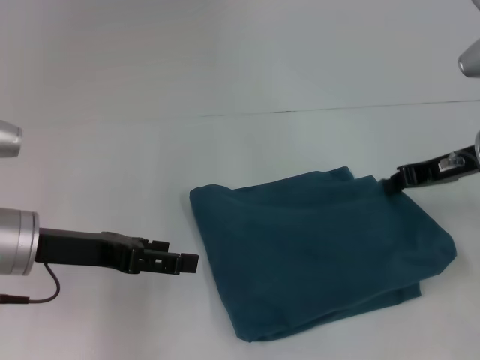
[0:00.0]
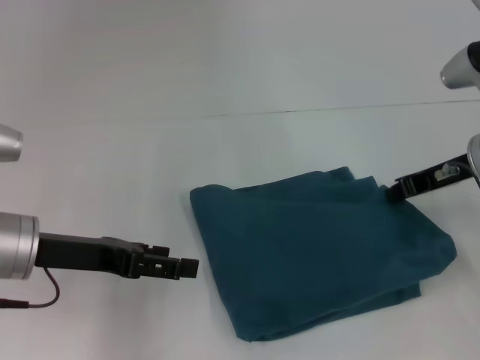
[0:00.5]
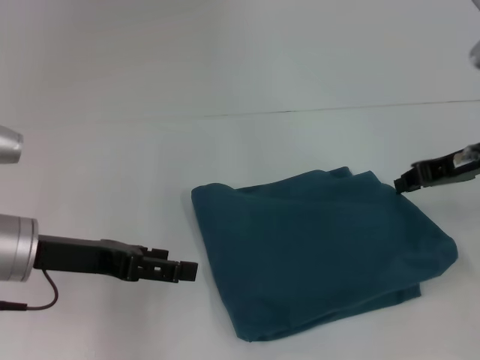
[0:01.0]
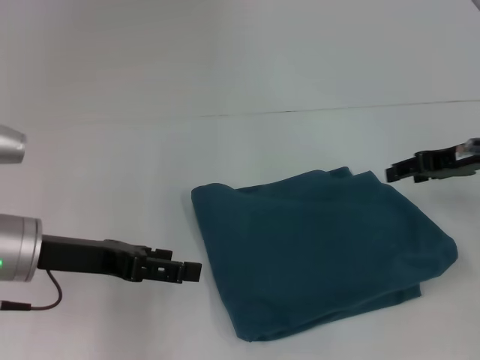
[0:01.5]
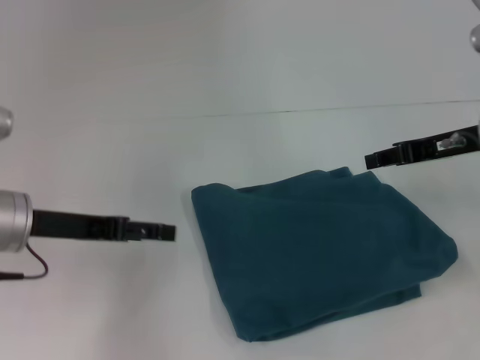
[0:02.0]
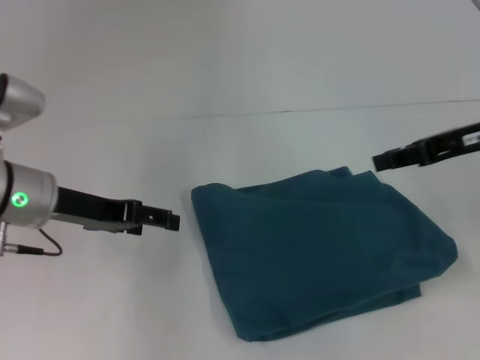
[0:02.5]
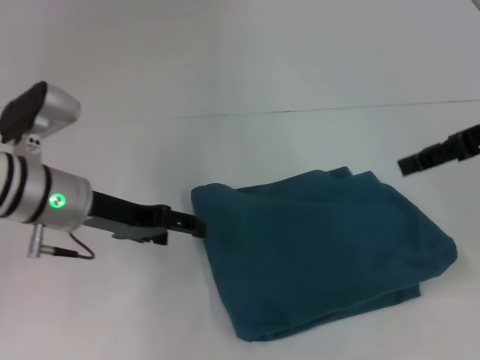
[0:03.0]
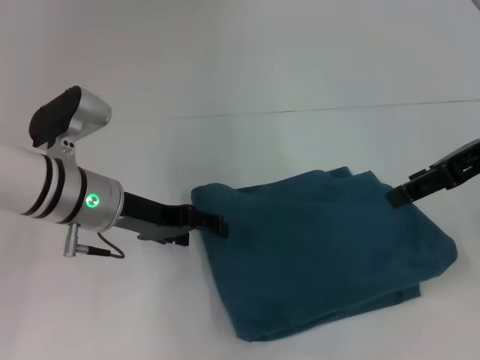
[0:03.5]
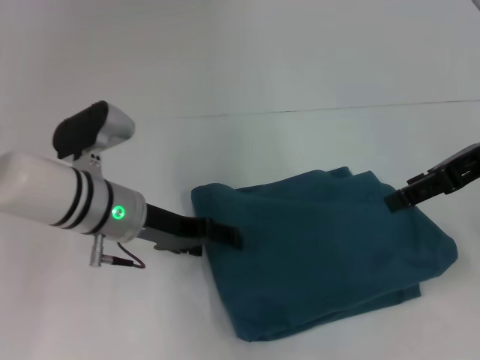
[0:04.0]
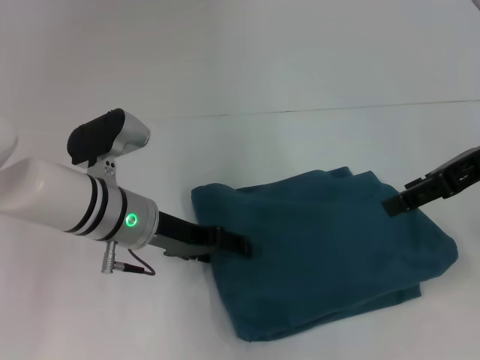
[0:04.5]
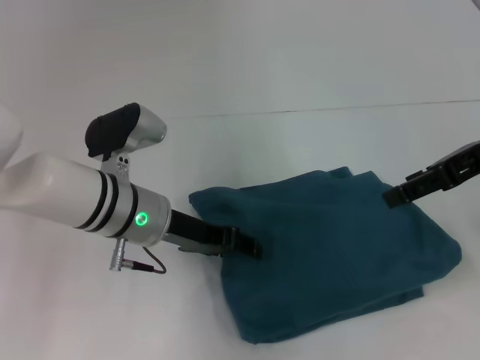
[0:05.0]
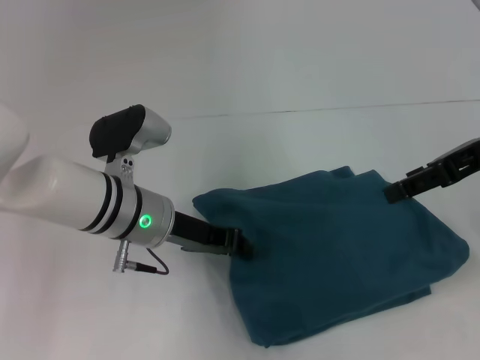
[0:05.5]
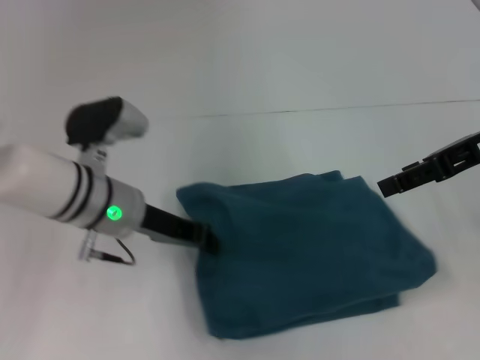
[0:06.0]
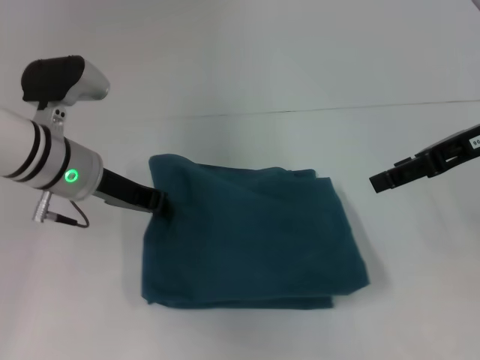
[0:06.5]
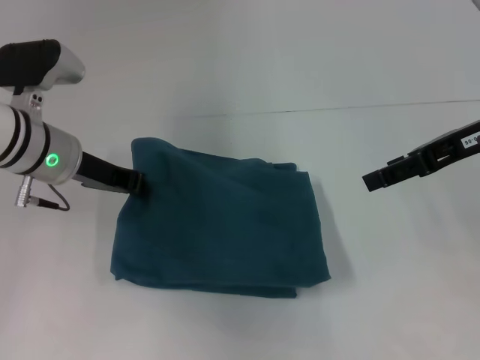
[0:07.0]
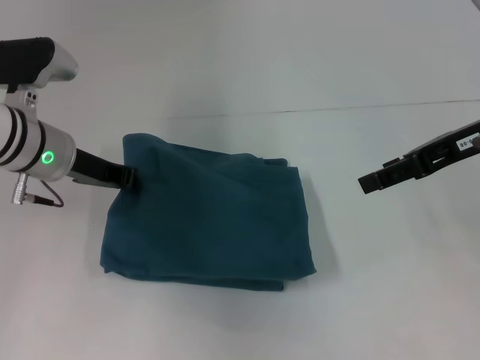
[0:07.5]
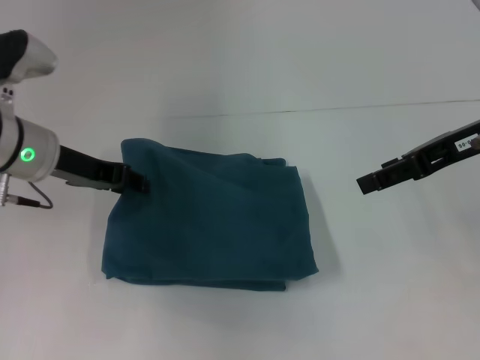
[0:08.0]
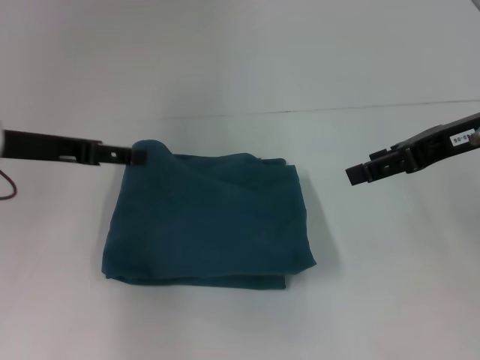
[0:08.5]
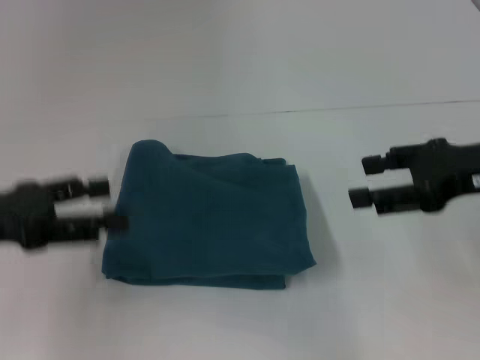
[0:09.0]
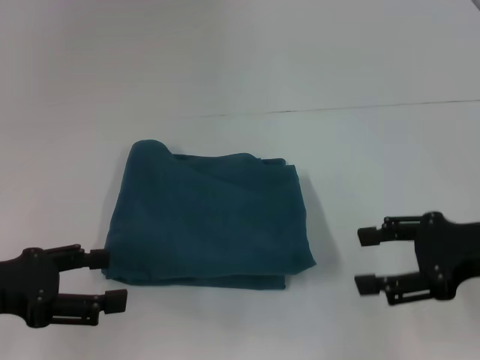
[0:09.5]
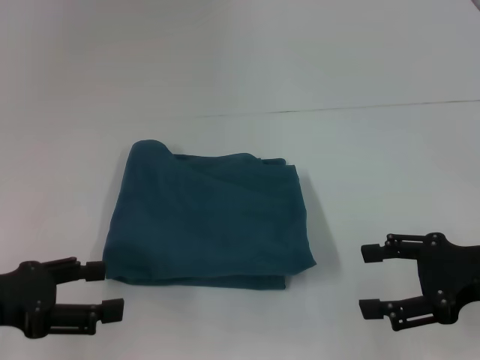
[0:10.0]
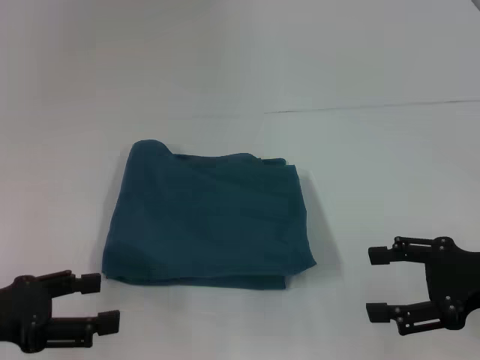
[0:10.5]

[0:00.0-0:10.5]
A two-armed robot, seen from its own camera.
0:00.0 to 0:02.0: The right gripper opens.
0:02.0 to 0:04.0: The left gripper shifts some 10 cm to the right. The right gripper goes roughly 5 cm upward, and closes and opens again.
0:04.0 to 0:06.5: The left gripper changes place by about 5 cm, and closes.
0:06.5 to 0:08.5: The left gripper goes some 10 cm to the left and upward, and opens up.
0:08.5 to 0:10.5: The right gripper is displaced downward and backward by roughly 15 cm, while the left gripper moves backward, downward and to the left, about 15 cm.

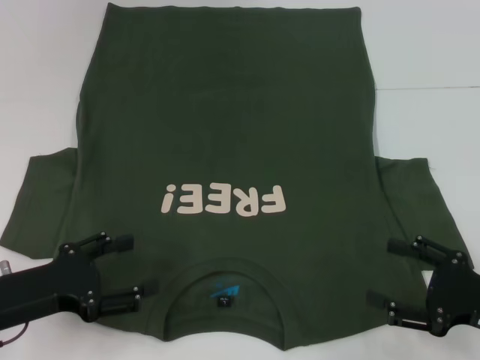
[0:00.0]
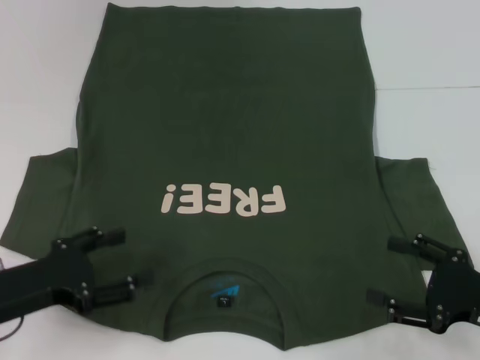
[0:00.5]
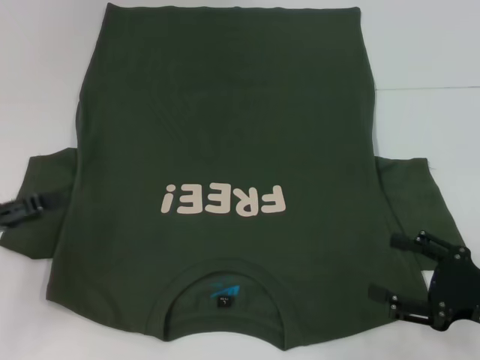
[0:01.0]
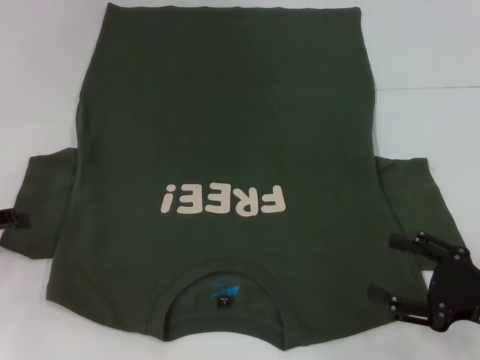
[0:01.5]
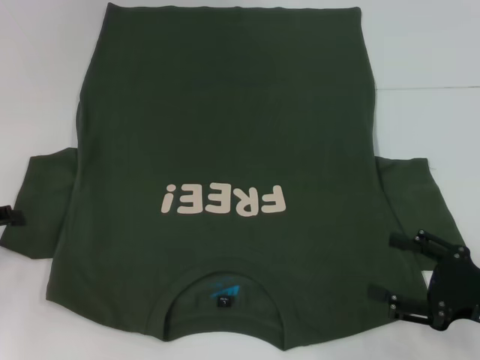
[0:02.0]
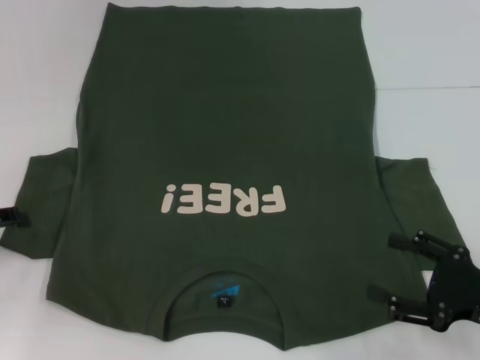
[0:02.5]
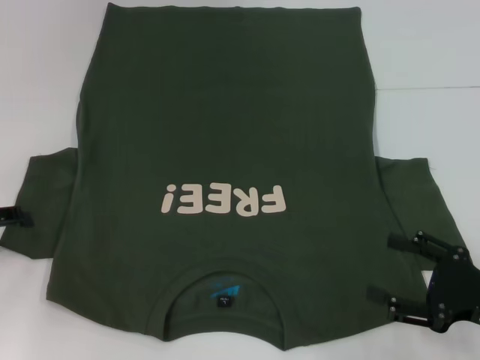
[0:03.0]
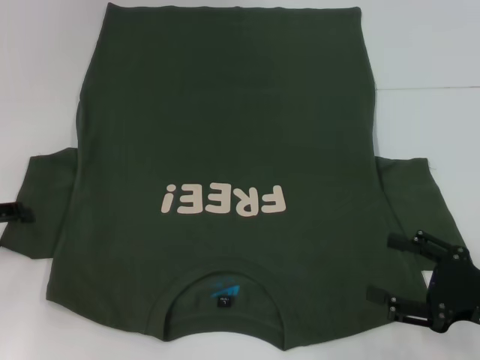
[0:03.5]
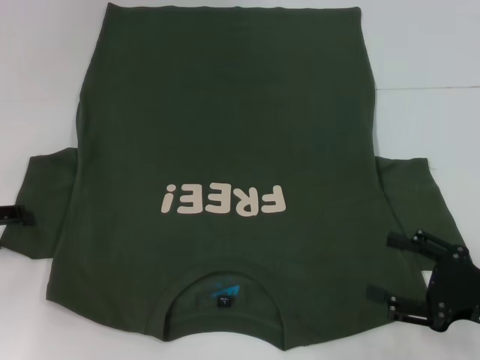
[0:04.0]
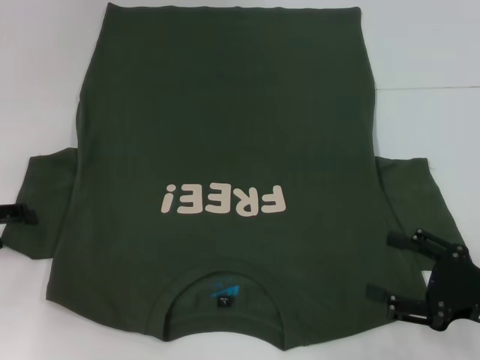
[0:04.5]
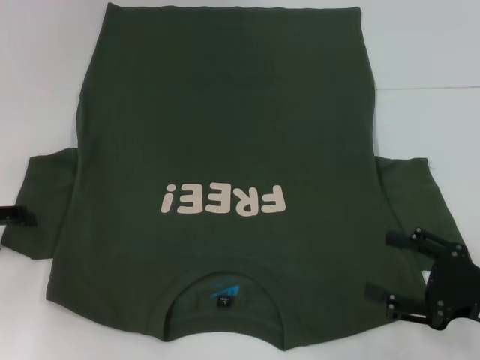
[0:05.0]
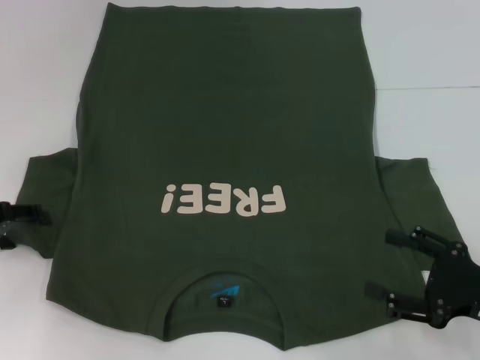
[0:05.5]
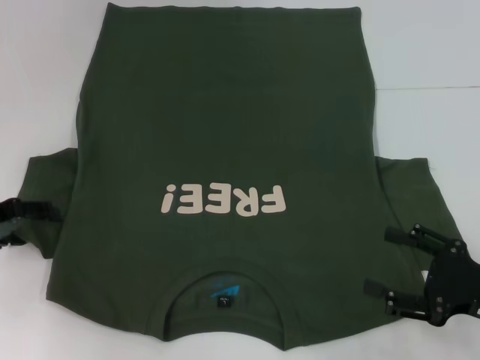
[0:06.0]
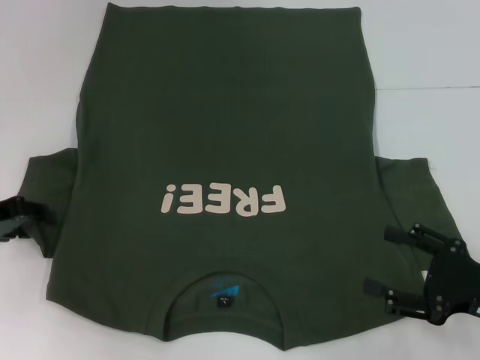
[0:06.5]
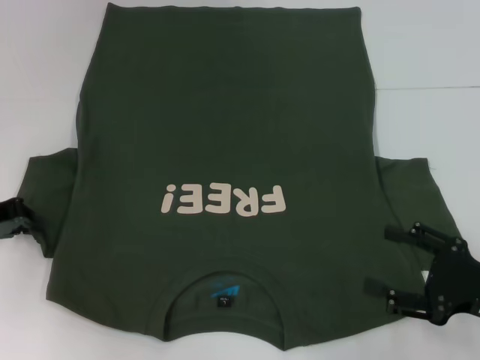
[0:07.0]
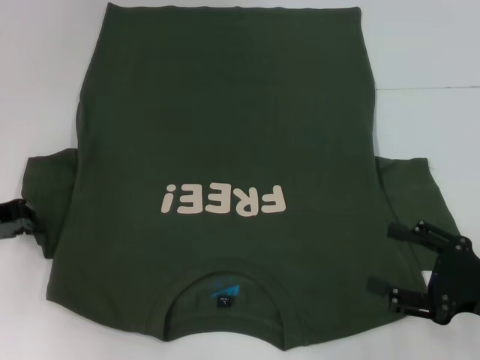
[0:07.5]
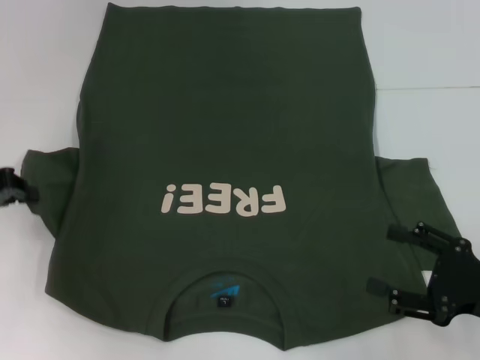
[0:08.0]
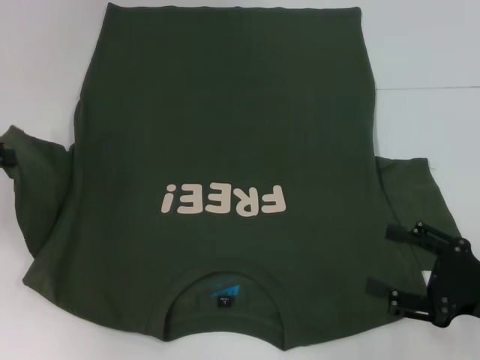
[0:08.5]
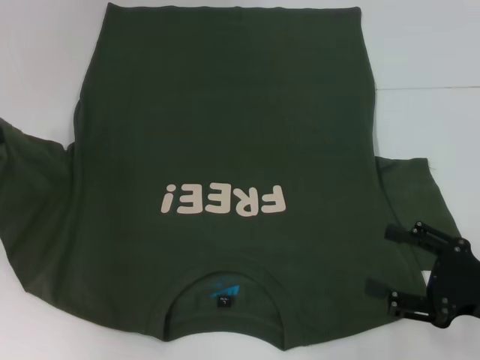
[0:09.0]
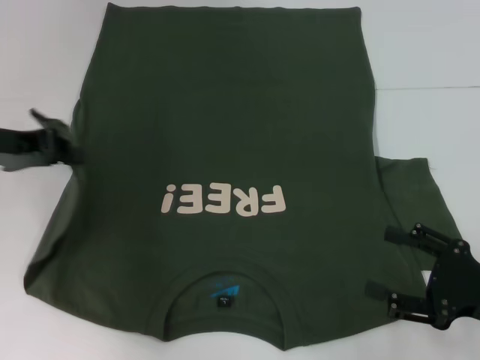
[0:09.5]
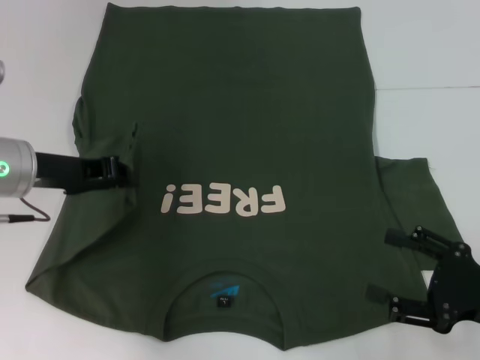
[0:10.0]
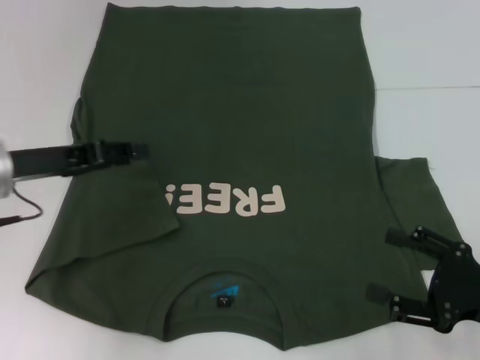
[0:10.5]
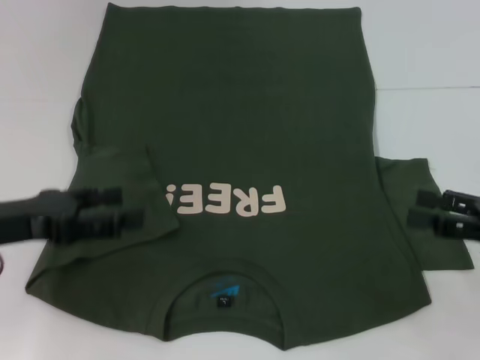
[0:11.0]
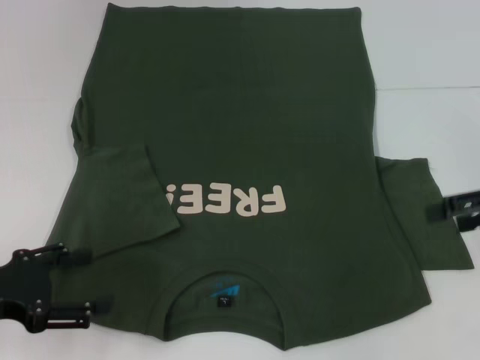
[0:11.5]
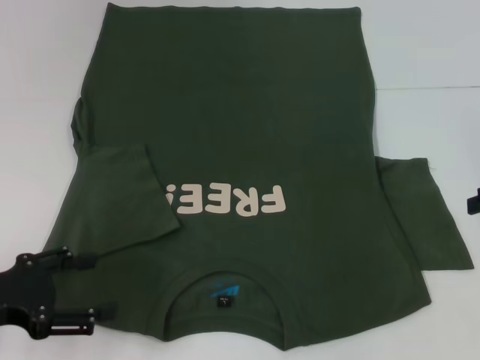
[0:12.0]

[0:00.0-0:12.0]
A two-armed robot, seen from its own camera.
Step, 0:00.0 to 0:10.0: Fold the bottom left sleeve with your left hand.
0:00.0 to 0:02.0: The left gripper goes approximately 10 cm to the left and forward.
0:04.0 to 0:06.0: The grippers make only small movements.
0:06.0 to 0:08.0: The left gripper closes up.
0:08.0 to 0:10.0: The left gripper travels to the right by roughly 10 cm.
0:10.0 to 0:12.0: The left gripper travels backward and to the left by some 15 cm, and opens up, while the right gripper shifts about 20 cm upward, forward and to the right.

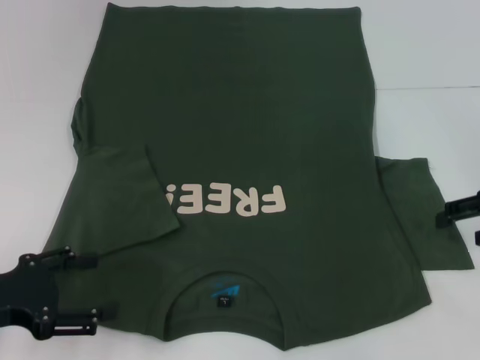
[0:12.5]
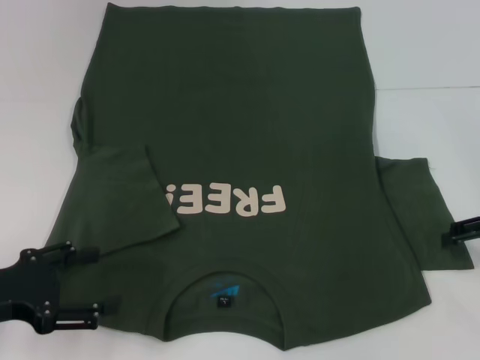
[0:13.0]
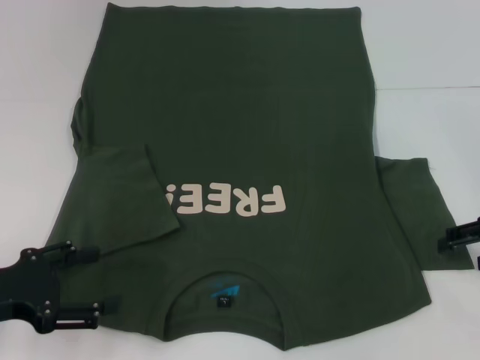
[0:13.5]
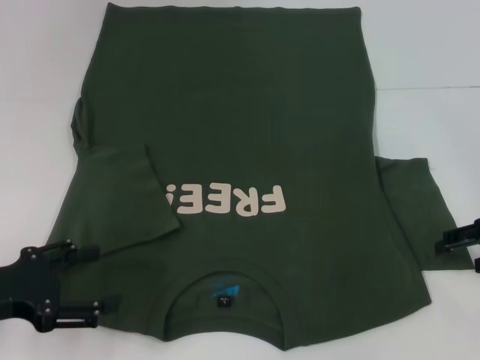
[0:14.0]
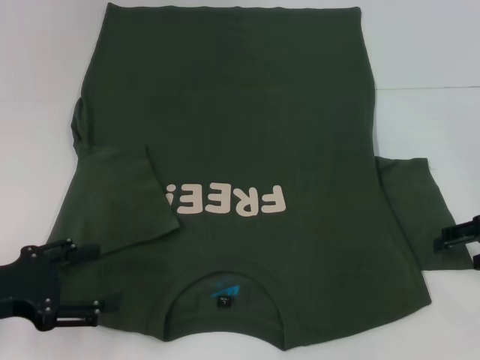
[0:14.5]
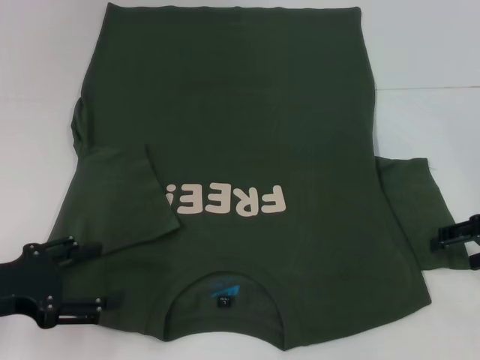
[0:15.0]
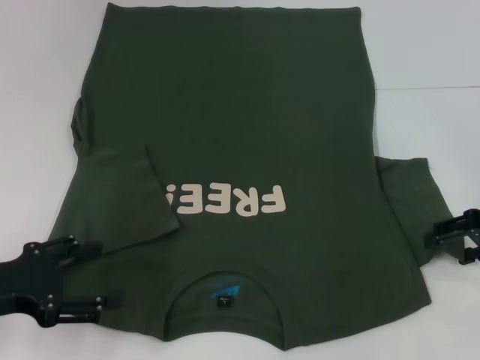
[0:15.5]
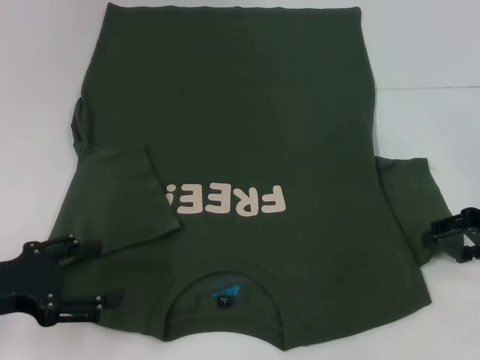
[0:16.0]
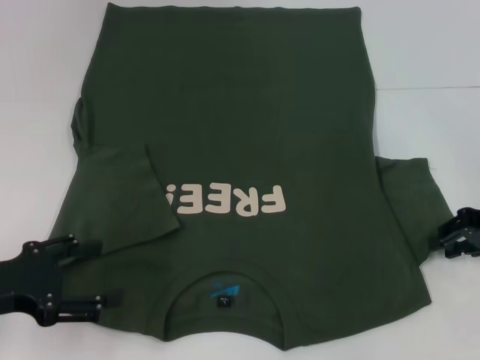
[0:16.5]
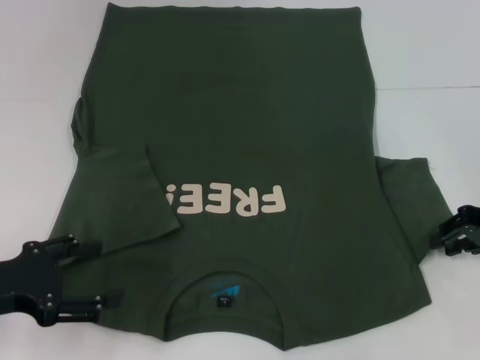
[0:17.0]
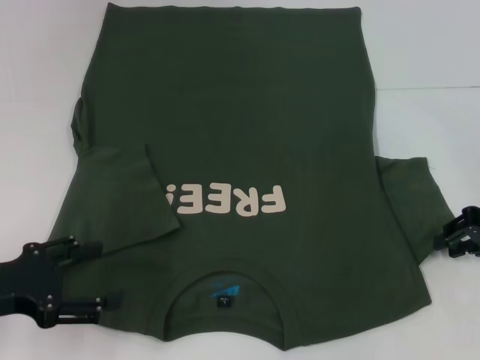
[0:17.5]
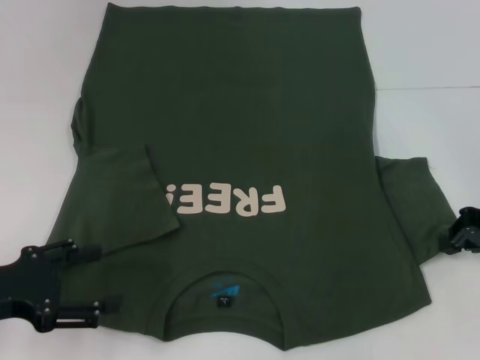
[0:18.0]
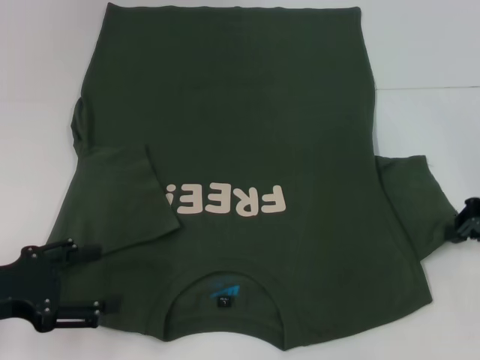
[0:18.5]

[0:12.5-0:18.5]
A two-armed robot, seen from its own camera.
0:12.5 to 0:14.5: The grippers stay close to where they were, moving slightly.
0:14.5 to 0:16.5: Both grippers stay about where they are.
0:16.5 to 0:18.5: The right gripper closes up.
